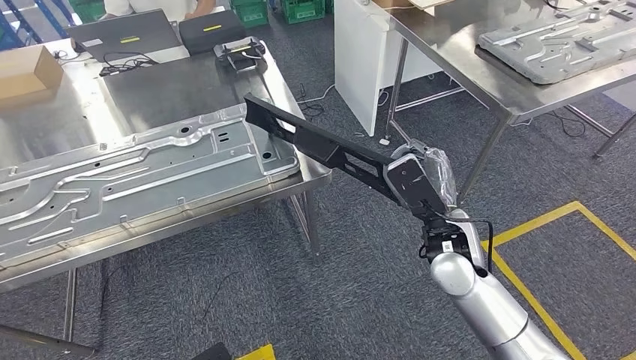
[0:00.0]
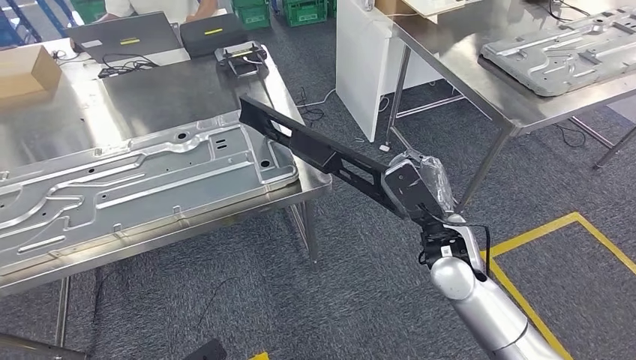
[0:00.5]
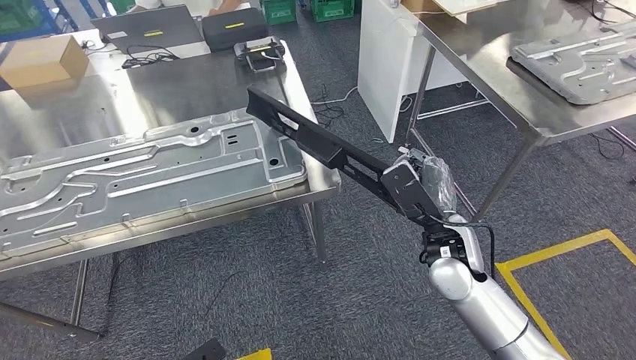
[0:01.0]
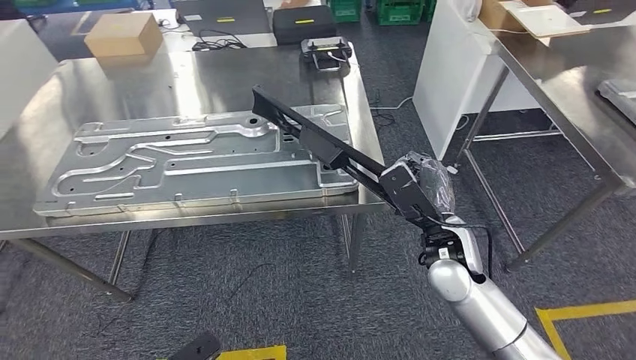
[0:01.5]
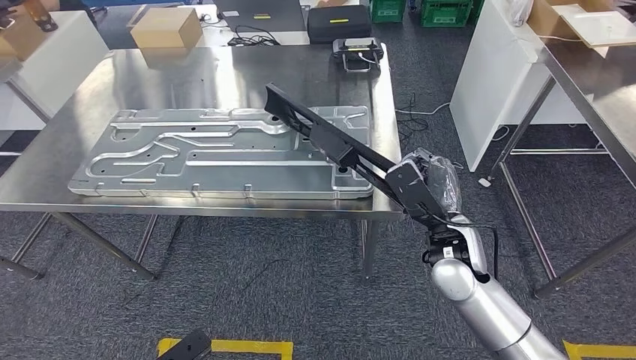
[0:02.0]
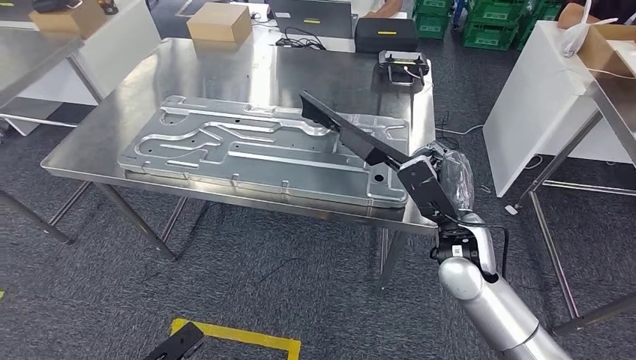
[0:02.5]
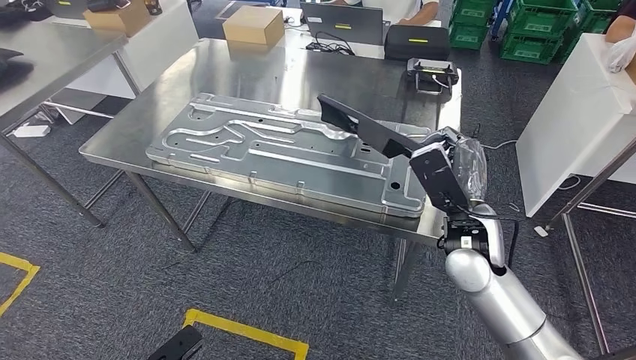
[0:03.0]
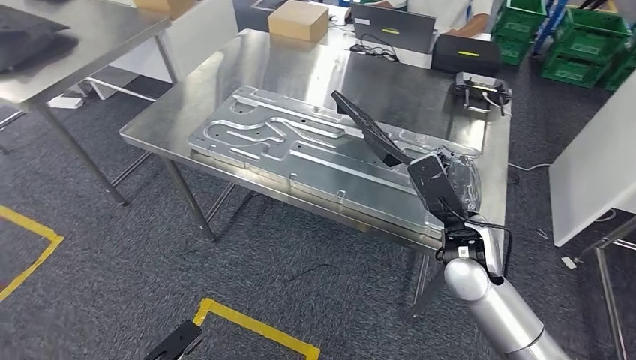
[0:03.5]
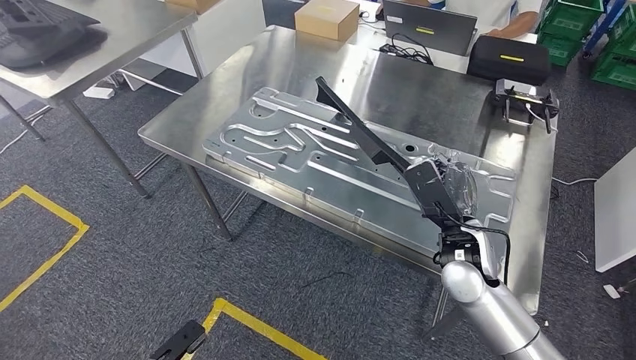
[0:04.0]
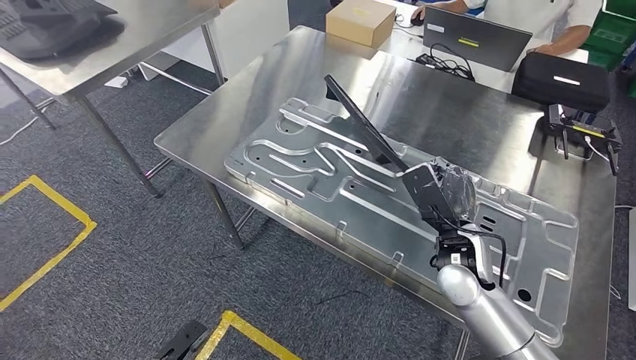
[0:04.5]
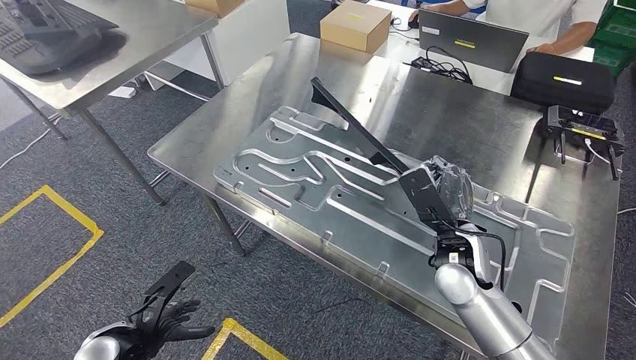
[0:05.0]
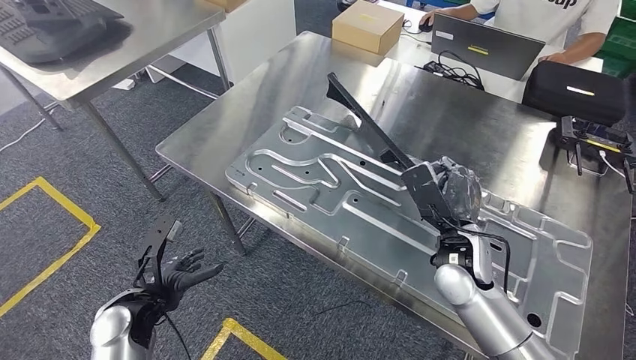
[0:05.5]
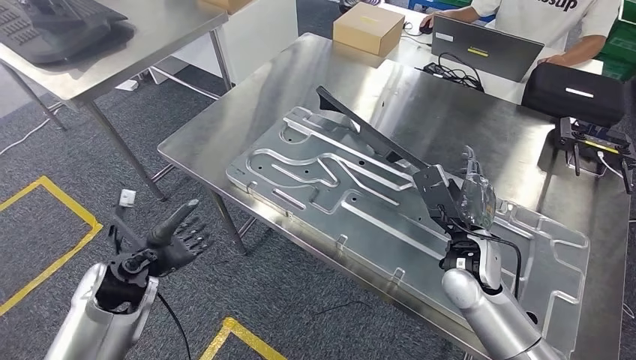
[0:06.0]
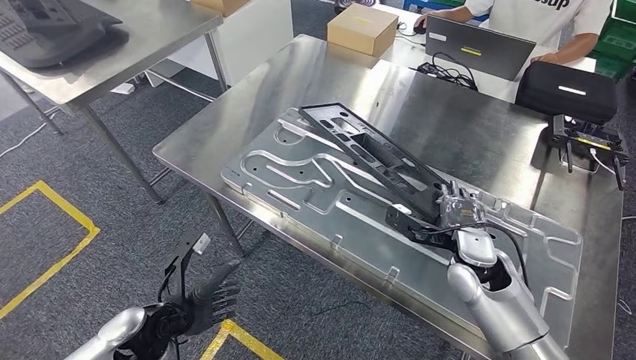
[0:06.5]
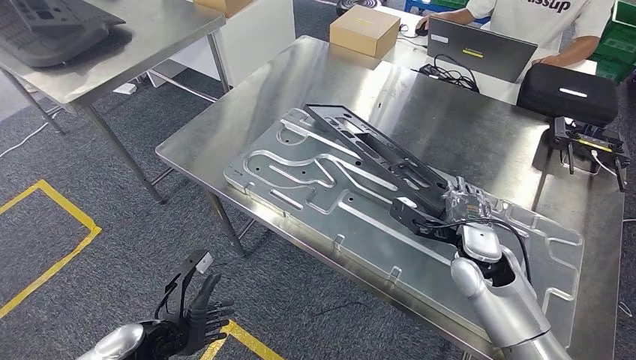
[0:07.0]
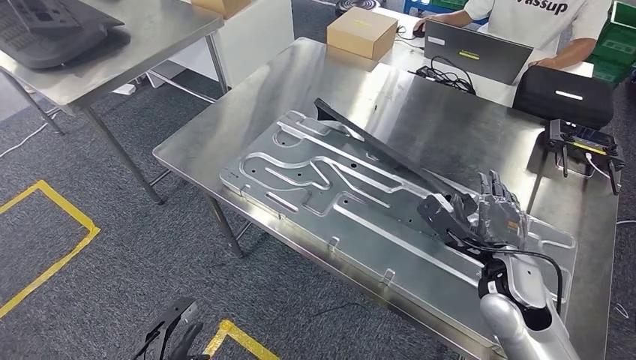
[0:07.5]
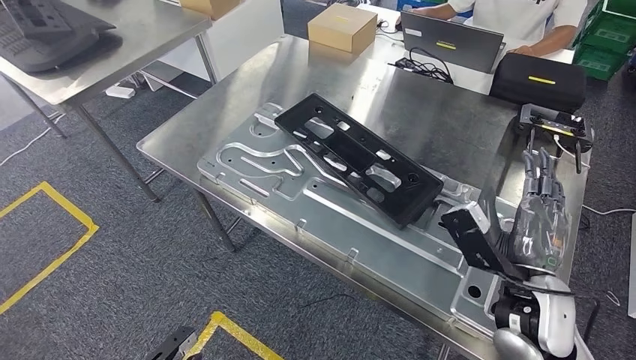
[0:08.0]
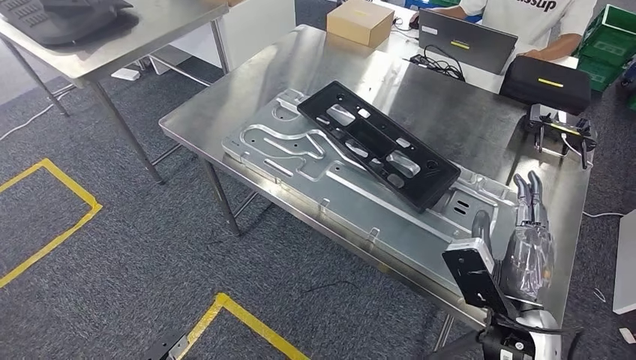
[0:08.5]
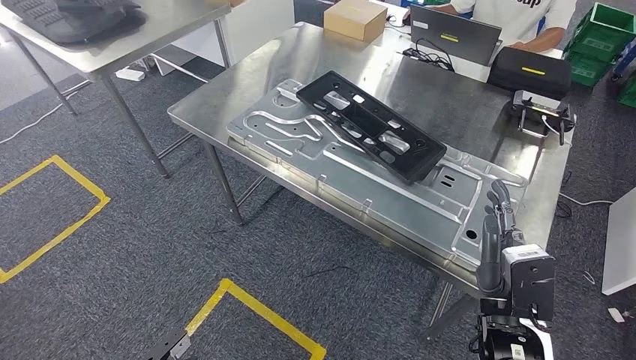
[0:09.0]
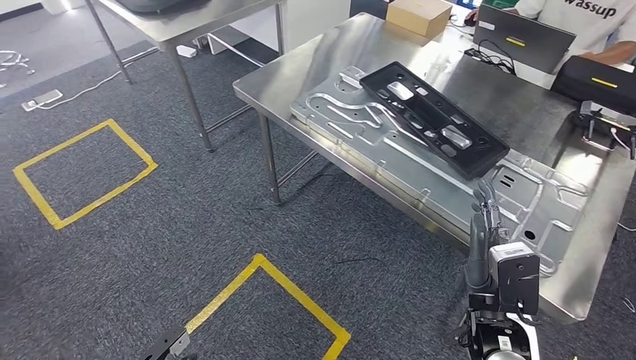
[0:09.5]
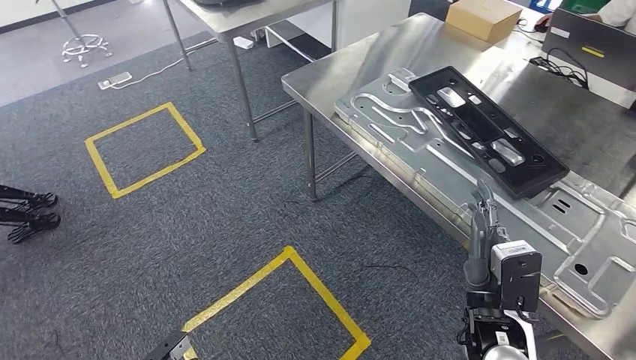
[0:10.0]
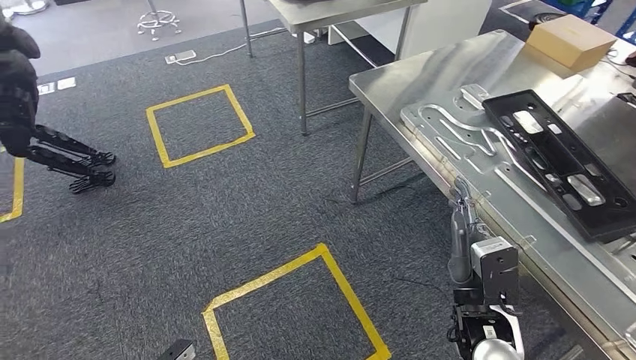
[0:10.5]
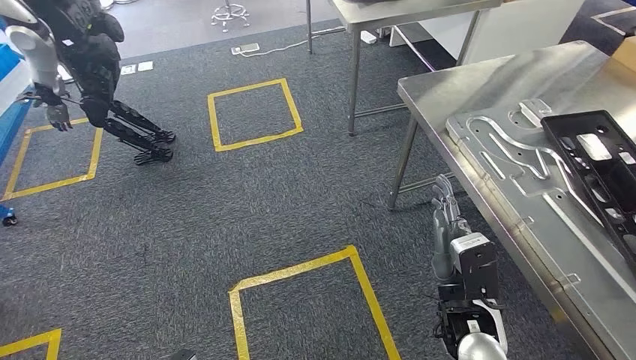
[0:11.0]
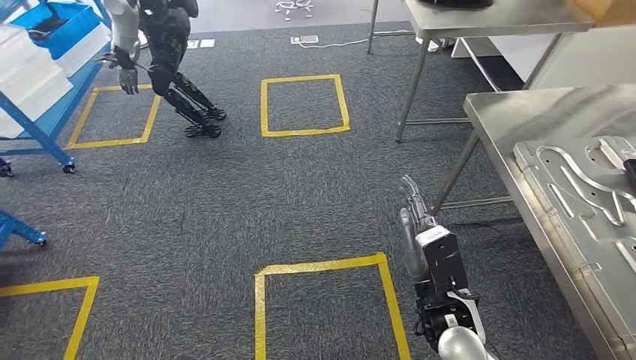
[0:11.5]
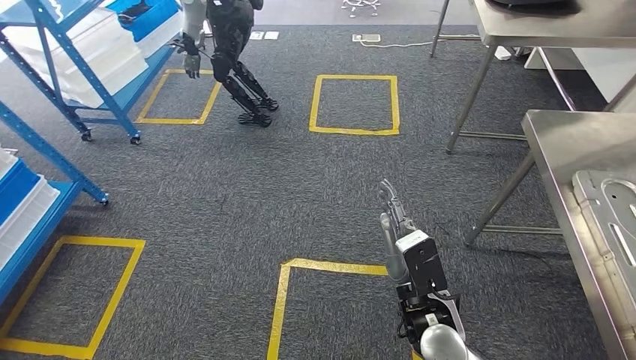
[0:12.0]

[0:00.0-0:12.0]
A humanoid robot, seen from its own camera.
Step, 0:00.0 to 0:09.0: Insert the large material into the corresponding slot on the workbench.

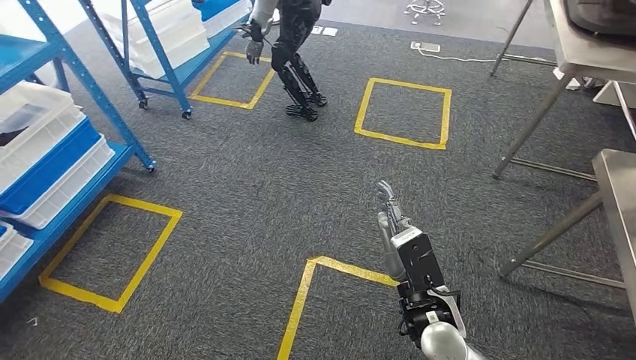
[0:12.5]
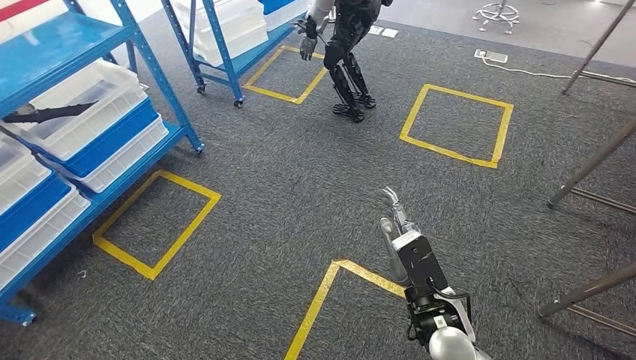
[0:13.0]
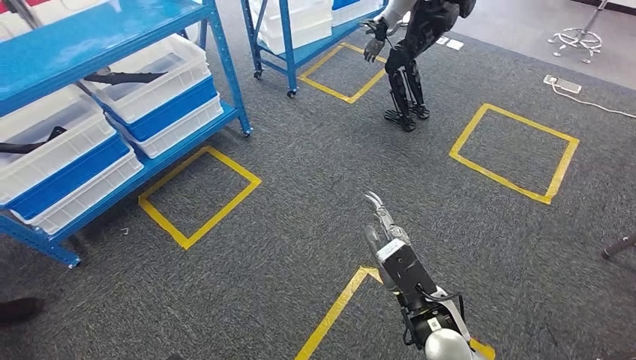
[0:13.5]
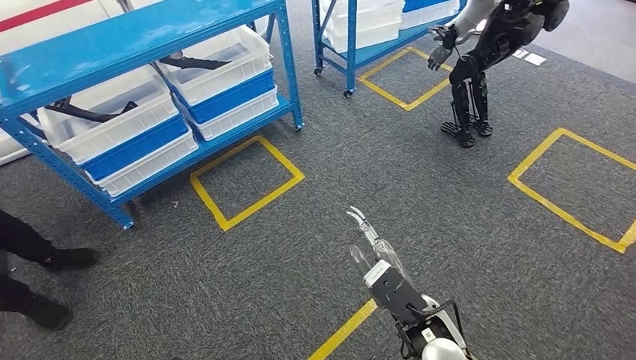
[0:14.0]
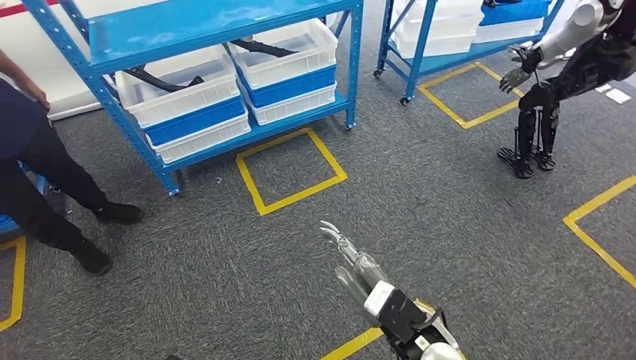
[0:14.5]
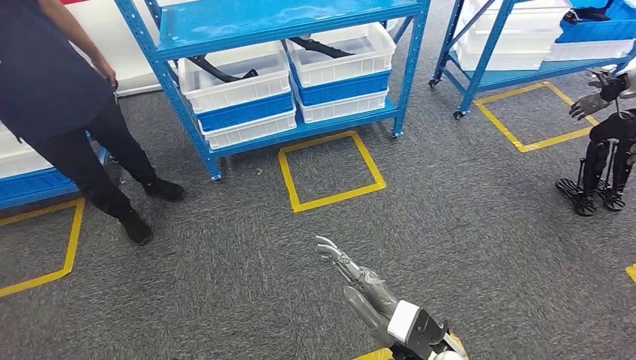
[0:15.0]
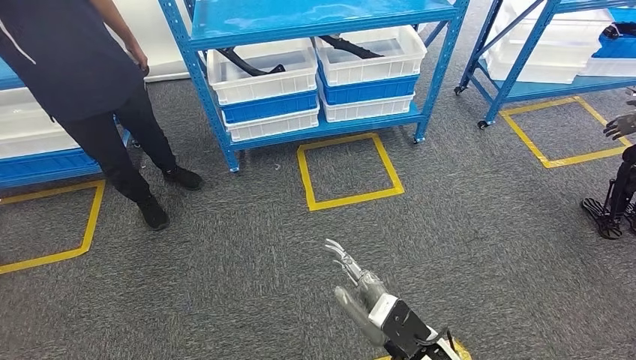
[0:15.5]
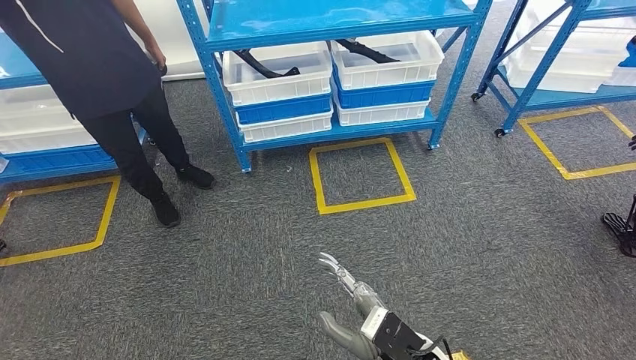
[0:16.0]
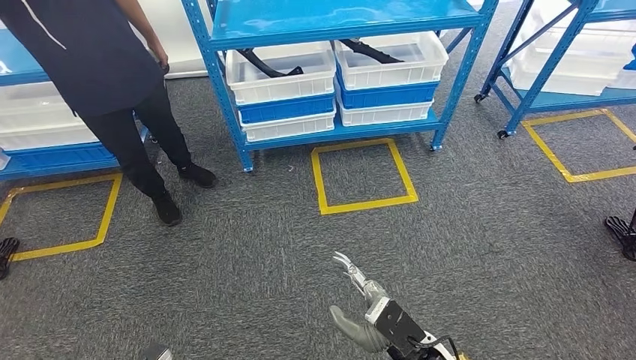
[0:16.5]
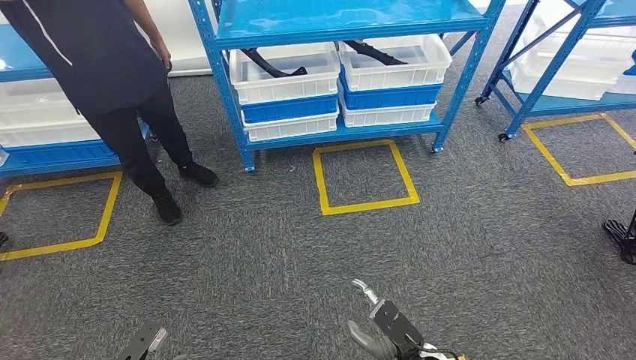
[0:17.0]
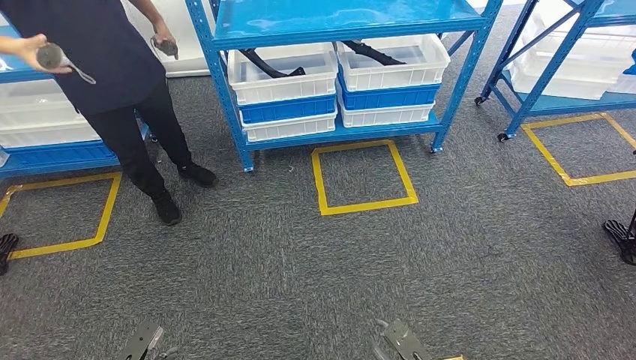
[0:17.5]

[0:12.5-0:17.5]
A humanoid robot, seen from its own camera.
Step, 0:12.5 to 0:17.5: Return to the initial position at the shelf.

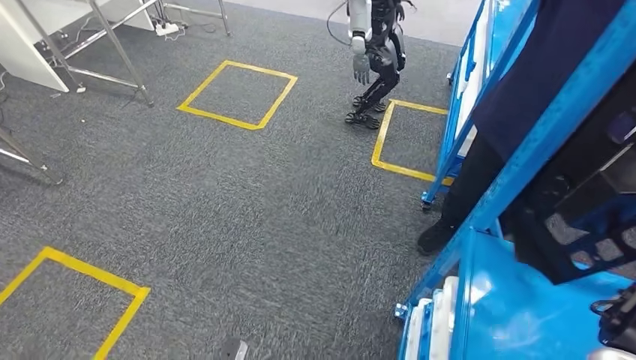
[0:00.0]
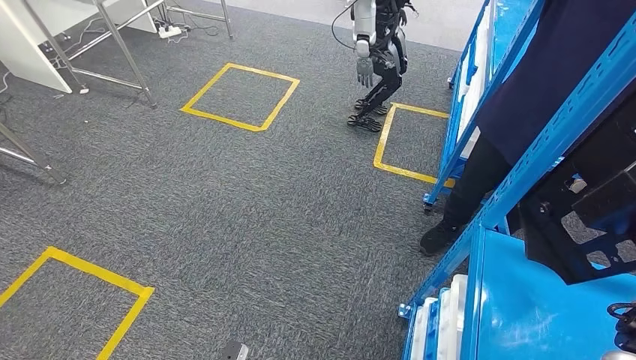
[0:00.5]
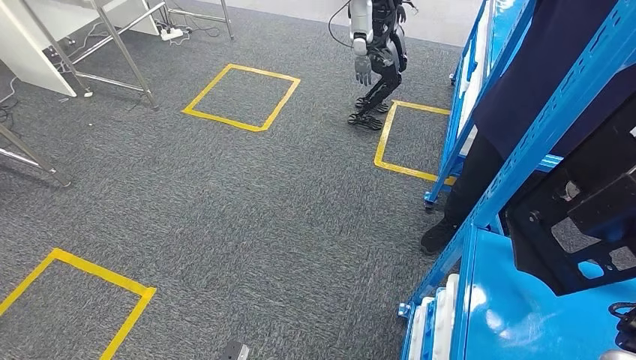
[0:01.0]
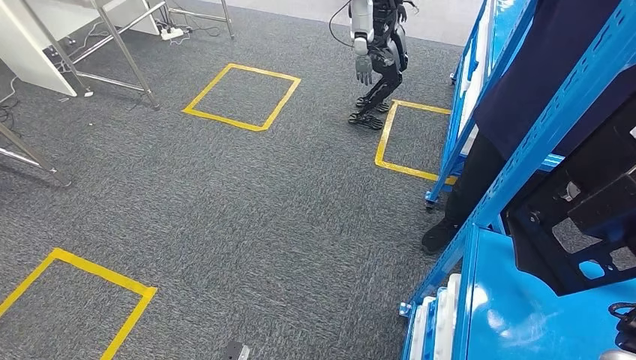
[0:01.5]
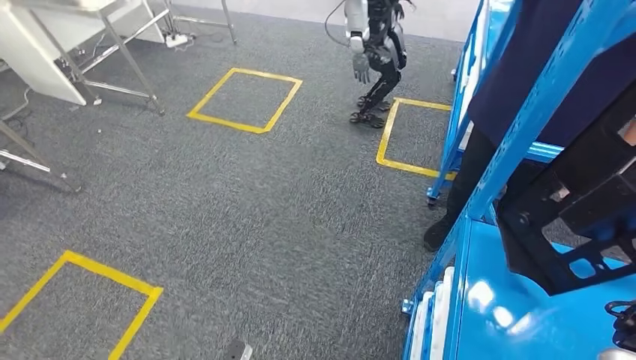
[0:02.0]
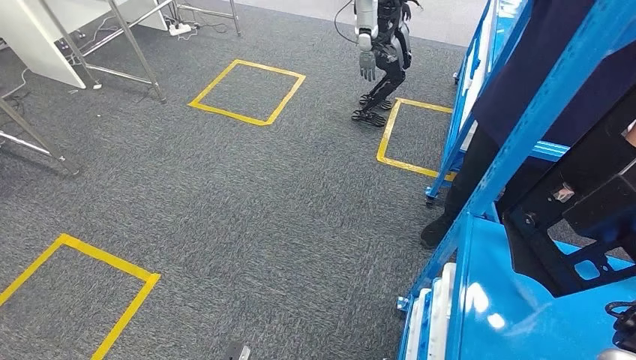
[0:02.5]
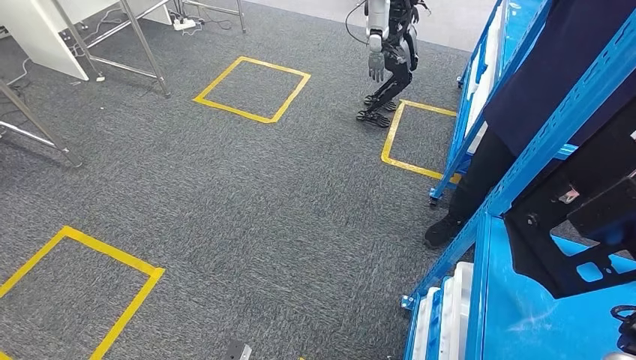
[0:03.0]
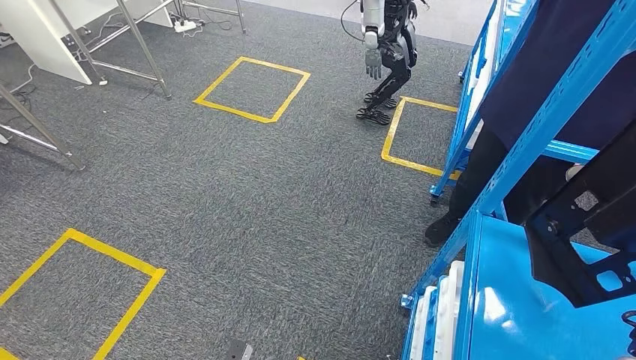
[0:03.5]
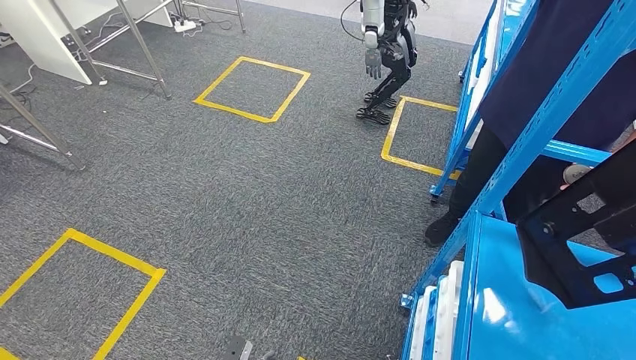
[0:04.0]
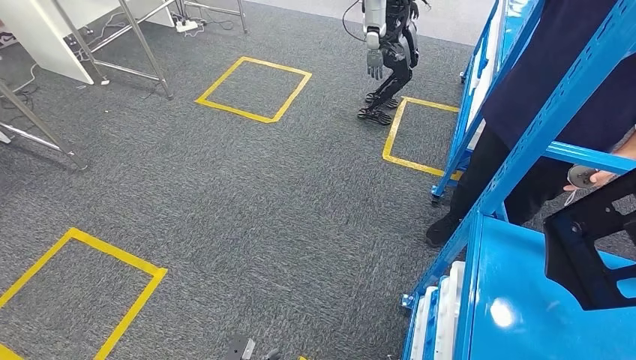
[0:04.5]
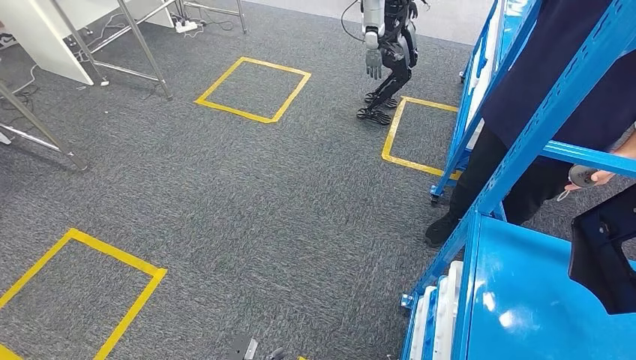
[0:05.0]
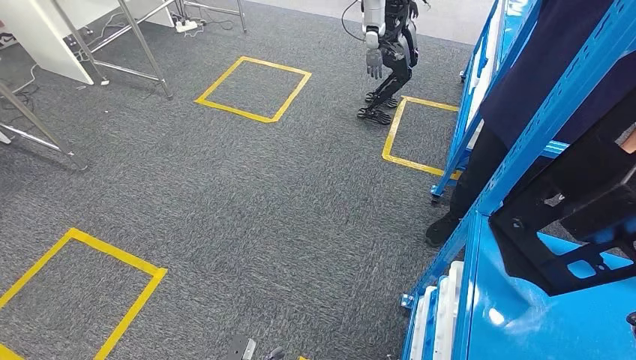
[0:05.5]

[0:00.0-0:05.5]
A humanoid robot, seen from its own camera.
0:03.5 to 0:05.5: The hands move only a little.
